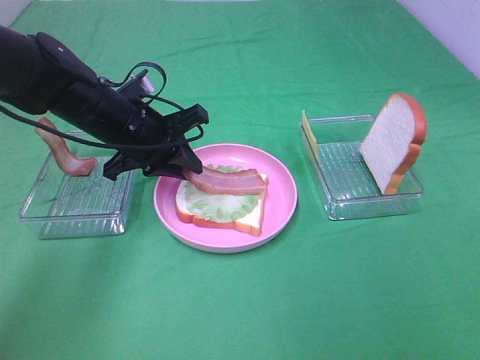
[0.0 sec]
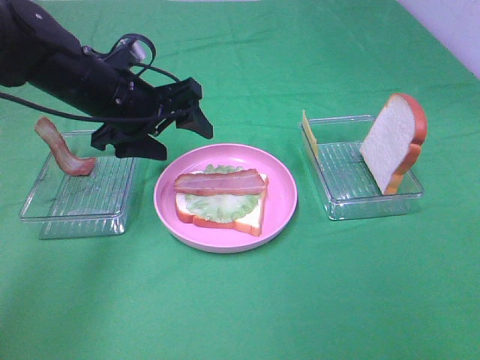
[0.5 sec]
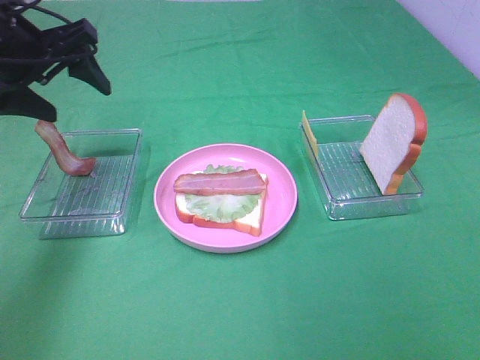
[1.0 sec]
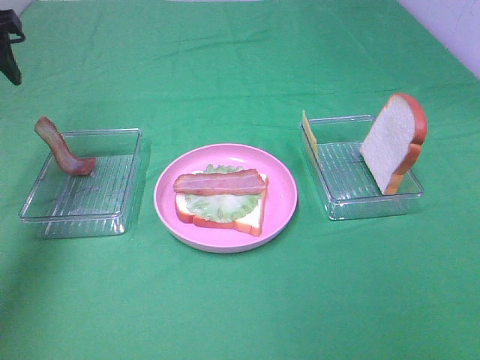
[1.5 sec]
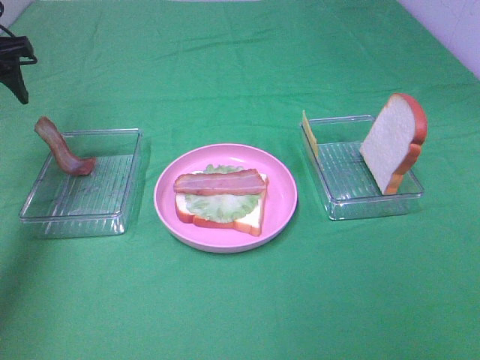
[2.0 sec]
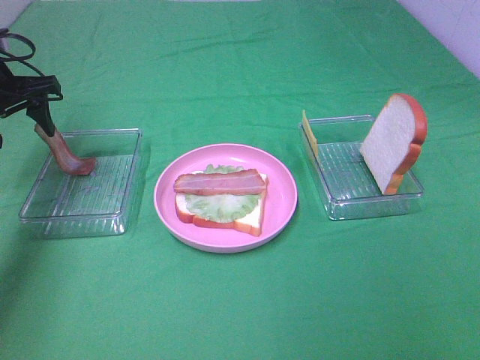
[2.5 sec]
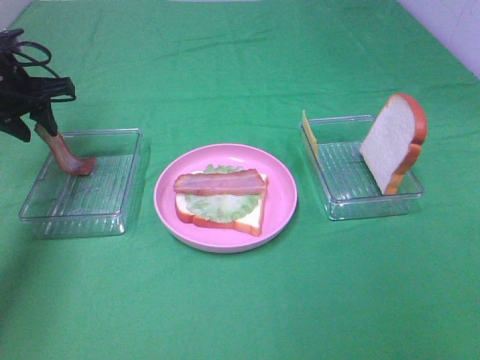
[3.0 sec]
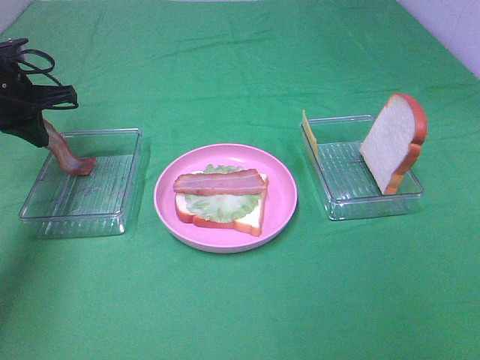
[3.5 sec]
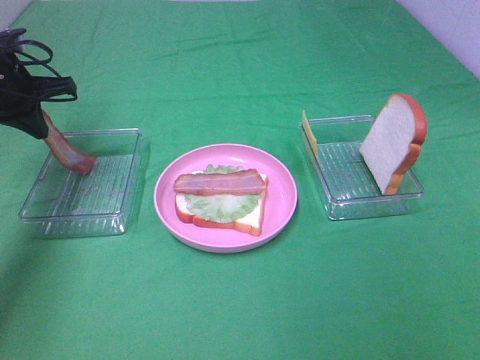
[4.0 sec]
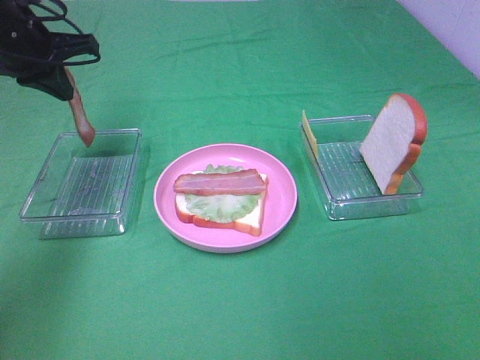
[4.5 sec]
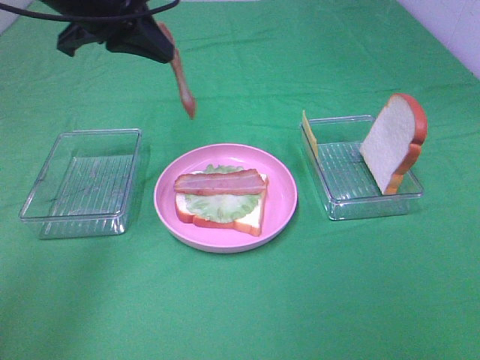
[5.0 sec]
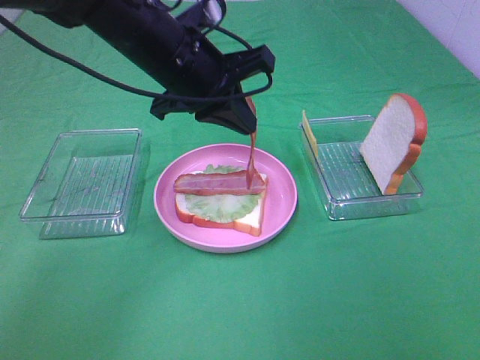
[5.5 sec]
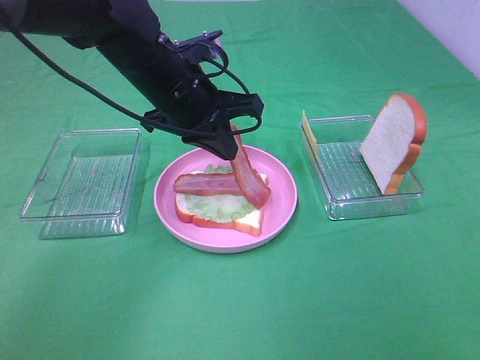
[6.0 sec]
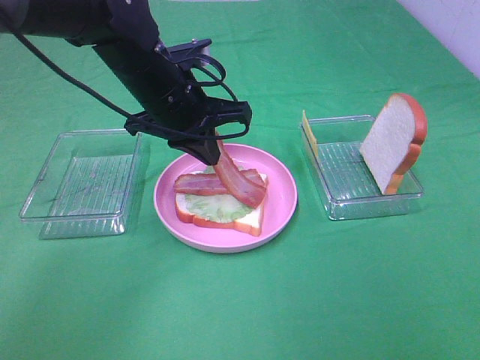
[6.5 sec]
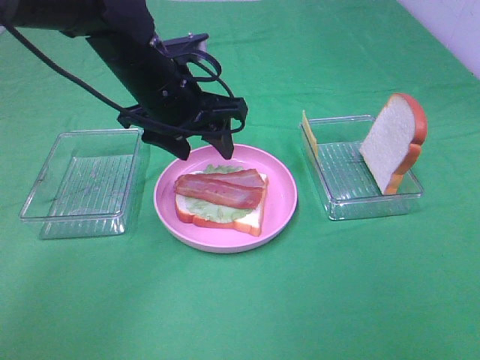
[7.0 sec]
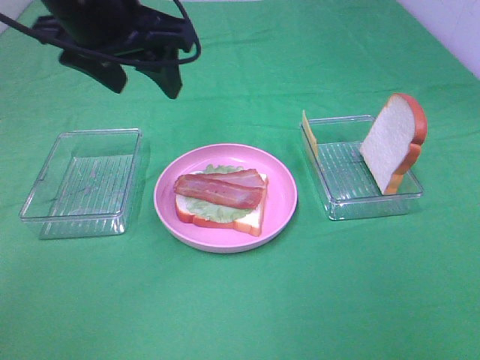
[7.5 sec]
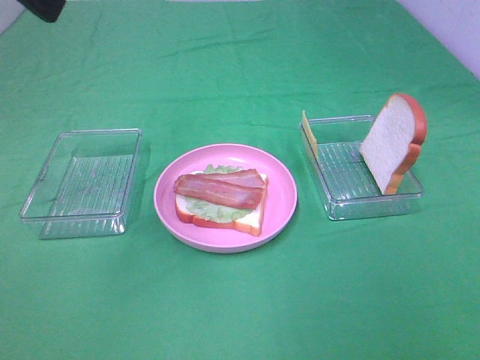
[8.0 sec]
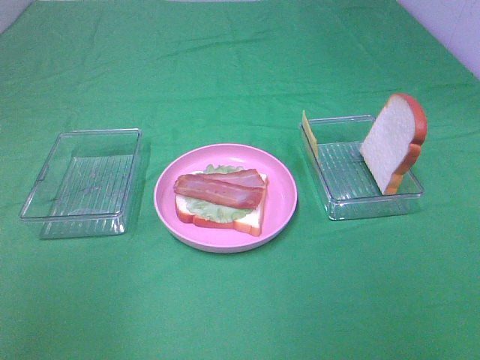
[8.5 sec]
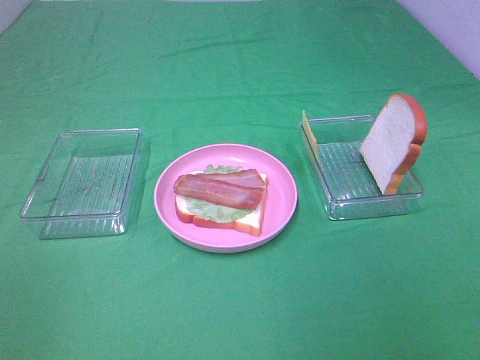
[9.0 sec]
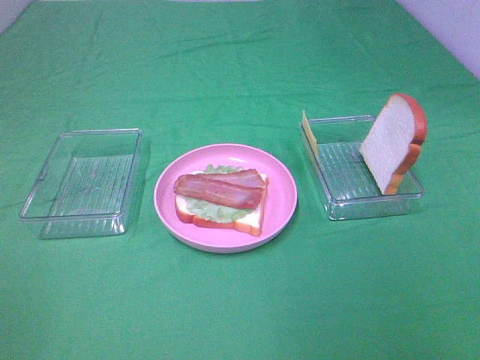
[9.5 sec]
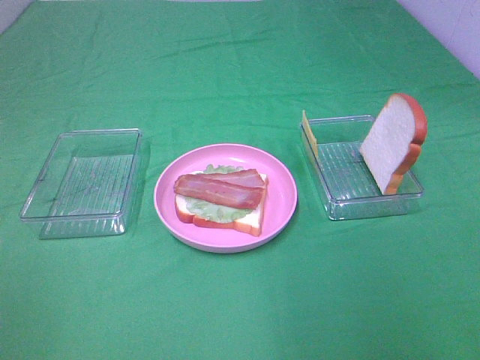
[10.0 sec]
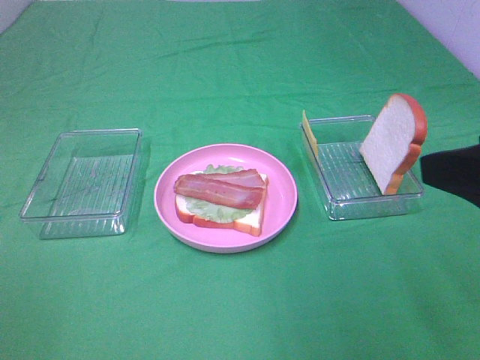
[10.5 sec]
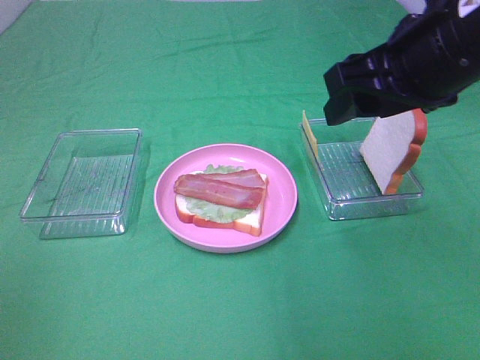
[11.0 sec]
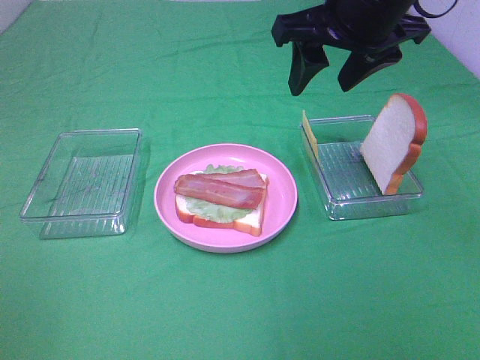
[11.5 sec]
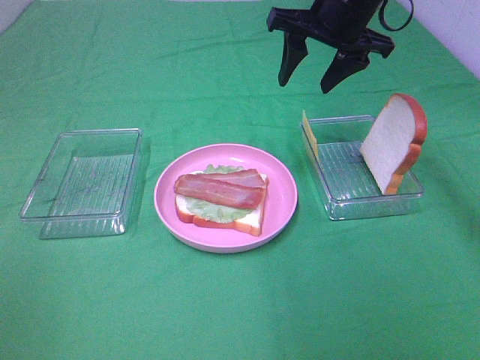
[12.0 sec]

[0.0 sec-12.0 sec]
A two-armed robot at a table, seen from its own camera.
Task of the whole recording: Make sandwiches.
Step, 0.5 sec to 3.5 sec: Left hand:grab the bacon.
0.0 sec to 2.0 sec: The left gripper moves to the left and upward, roughly 20 cm, and opens.
2.0 sec to 4.0 sec: The left gripper moves downward, approximately 5 cm, and closes its fingers.
4.0 sec to 6.0 sec: The left gripper is displaced to the right by approximately 25 cm.
6.0 sec to 8.0 sec: The left gripper is displaced upward, backward and to the left by roughly 30 cm, and opens its fingers.
8.0 sec to 10.0 sec: The left gripper is displaced backward, to the left and downward by some 30 cm.
10.0 sec to 12.0 sec: The right gripper goes about 40 cm forward.

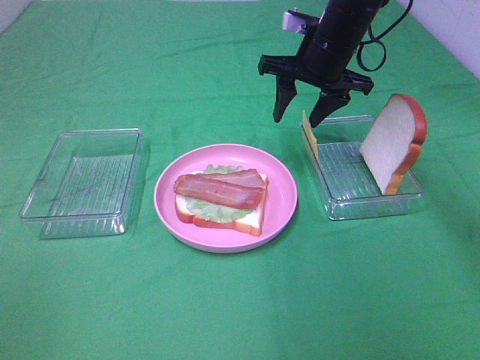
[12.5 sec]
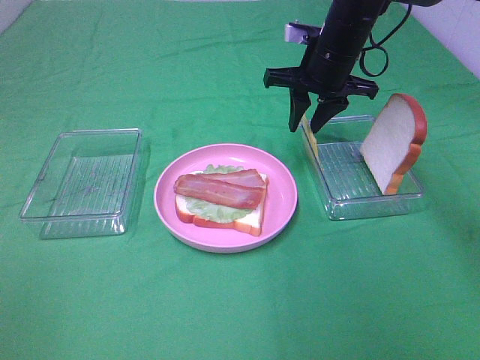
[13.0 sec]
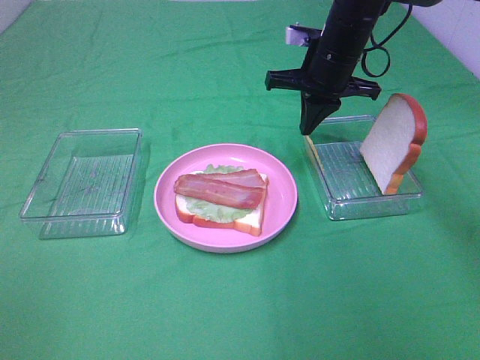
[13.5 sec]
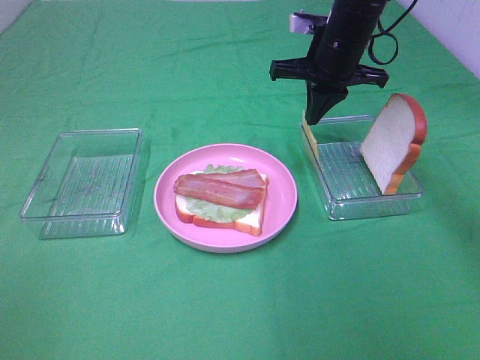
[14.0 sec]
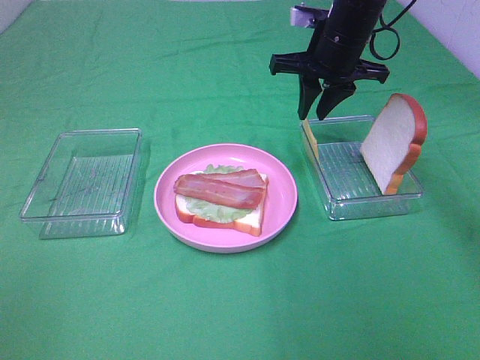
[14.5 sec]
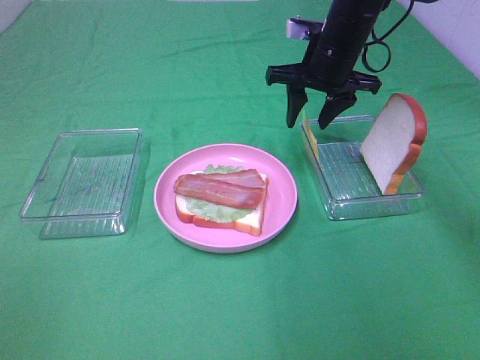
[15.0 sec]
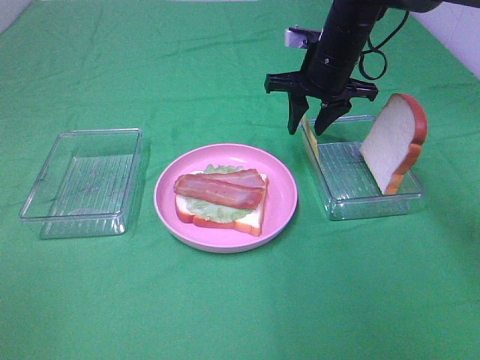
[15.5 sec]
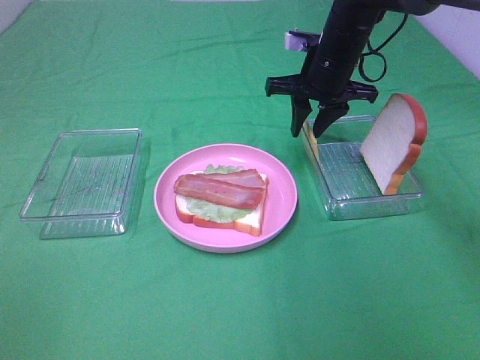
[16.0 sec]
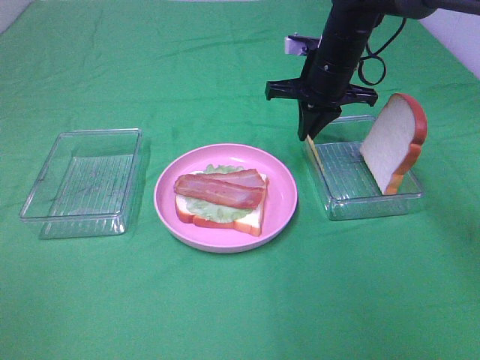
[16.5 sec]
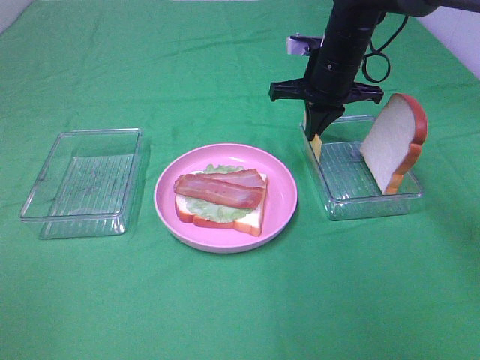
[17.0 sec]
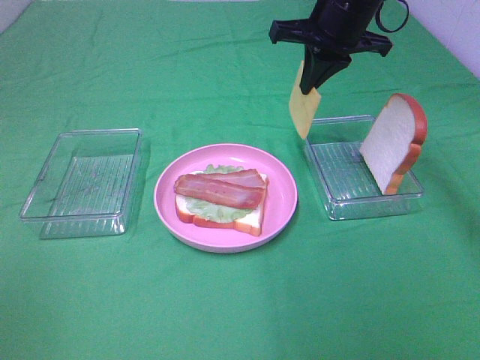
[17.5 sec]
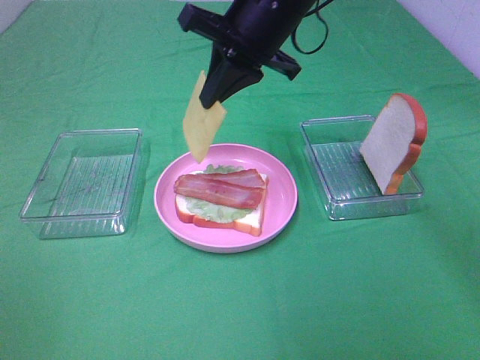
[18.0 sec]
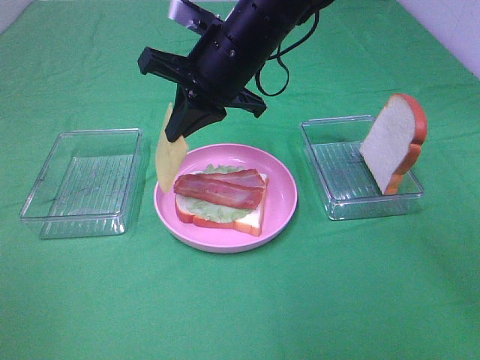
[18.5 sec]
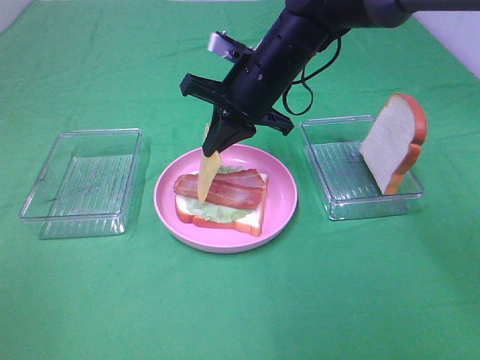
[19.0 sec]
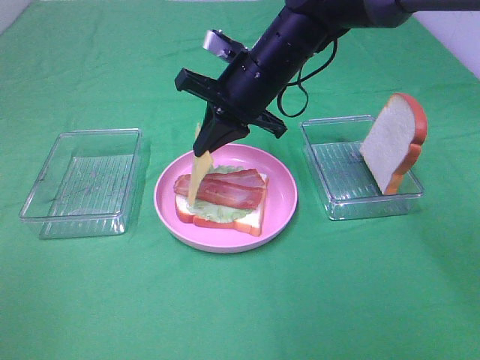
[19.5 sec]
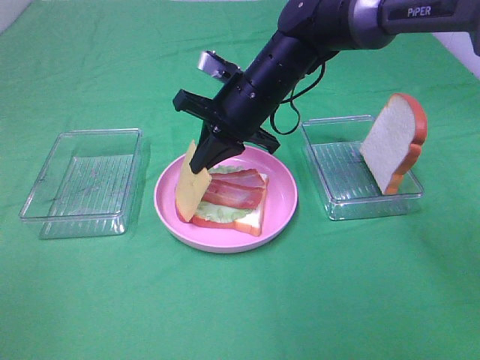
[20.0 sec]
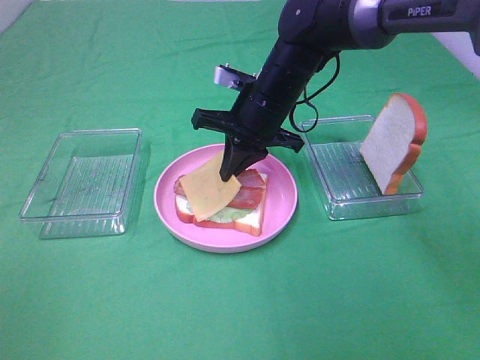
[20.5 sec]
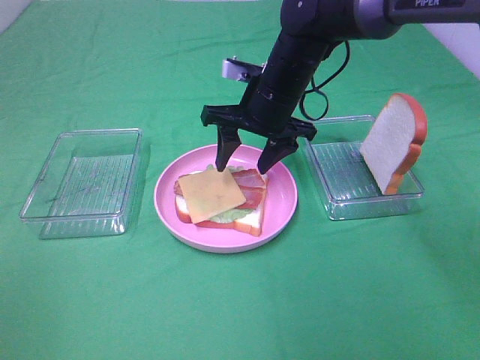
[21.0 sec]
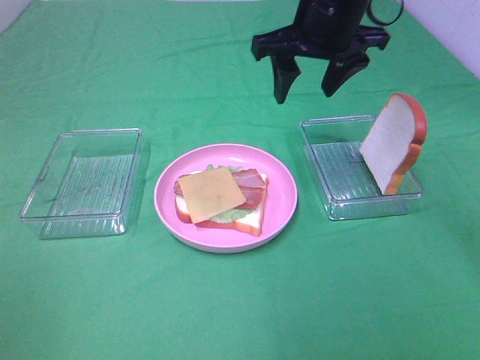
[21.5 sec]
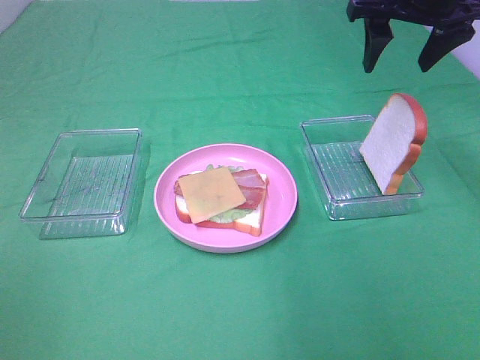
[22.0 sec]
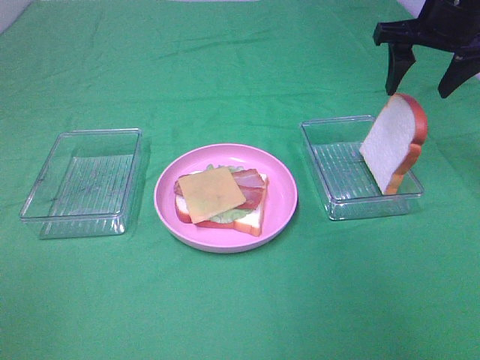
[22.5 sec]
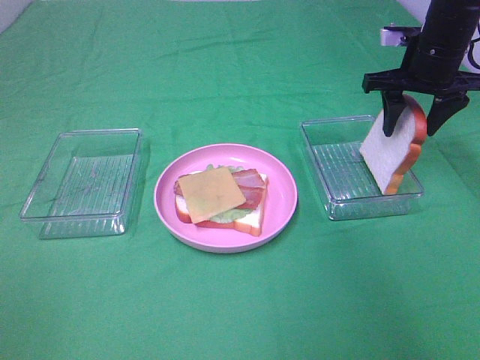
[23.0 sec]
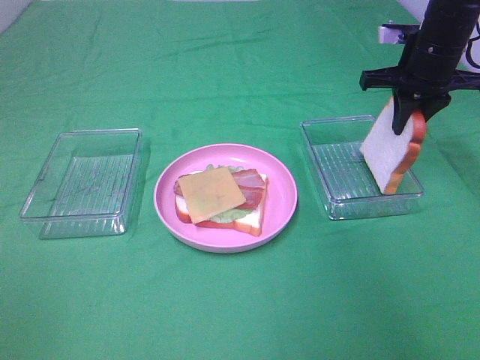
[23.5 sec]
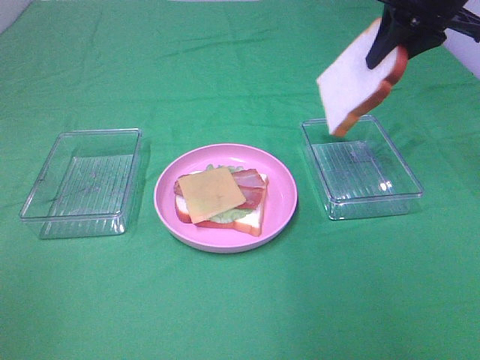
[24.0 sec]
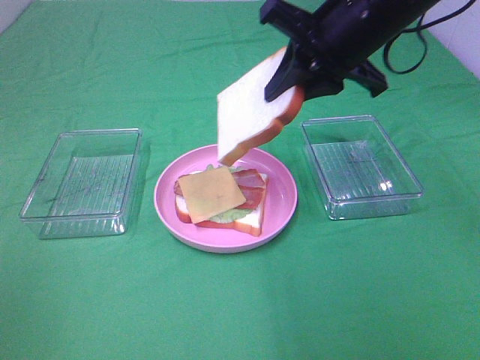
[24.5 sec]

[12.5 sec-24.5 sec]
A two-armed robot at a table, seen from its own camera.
Task of the whole recording: Make sandwiches.
Step, 12.5 sec to 16.5 sec: Right hand:grab the cheese slice.
Step, 17.0 sec to 21.0 sec: Right hand:place the cheese slice on top of the bacon.
Step, 21.5 sec to 23.0 sec: Right hand:grab the bread slice.
12.5 sec to 14.5 sec: The right gripper closes and opens again.
14.5 sec to 16.5 sec: The right gripper closes its fingers.
16.5 sec to 18.5 sec: The right gripper moves to the left, backward and upward, roughly 15 cm.
18.5 sec to 20.5 sec: The right gripper heads downward, covering some 5 cm.
20.5 sec to 22.5 sec: The right gripper travels to the right and upward by some 25 cm, and opens.
22.5 sec to 24.5 sec: The right gripper travels to the left and backward by roughly 15 cm, and closes up.

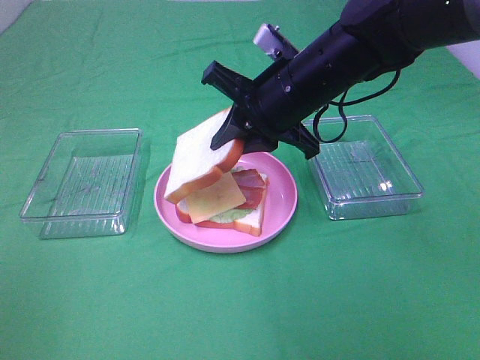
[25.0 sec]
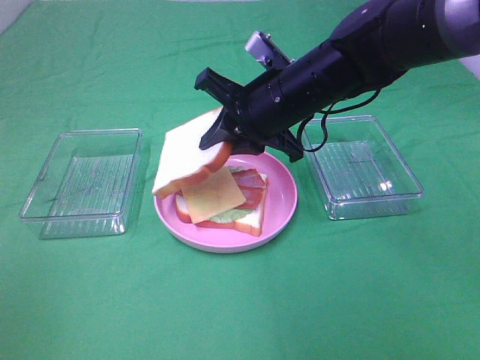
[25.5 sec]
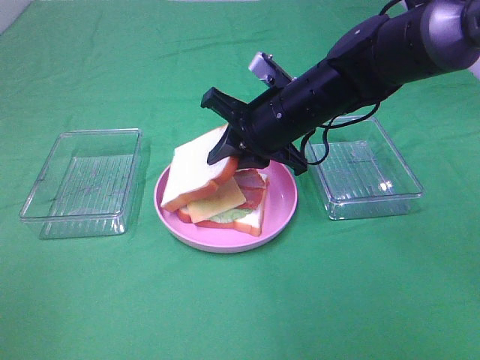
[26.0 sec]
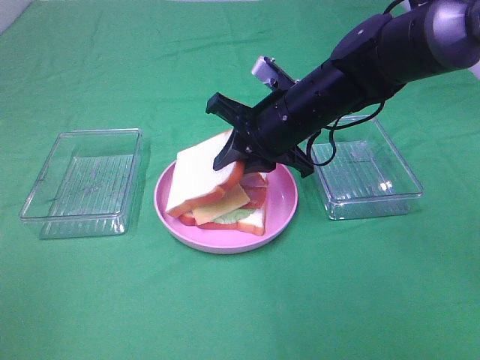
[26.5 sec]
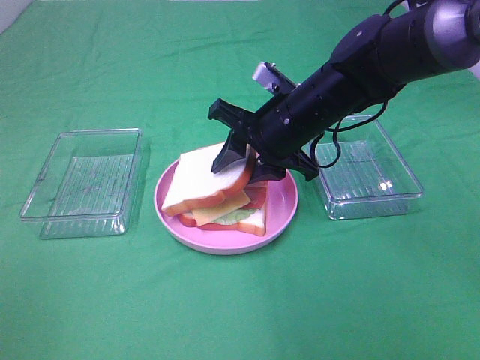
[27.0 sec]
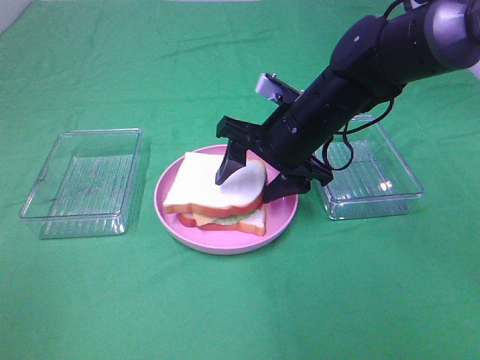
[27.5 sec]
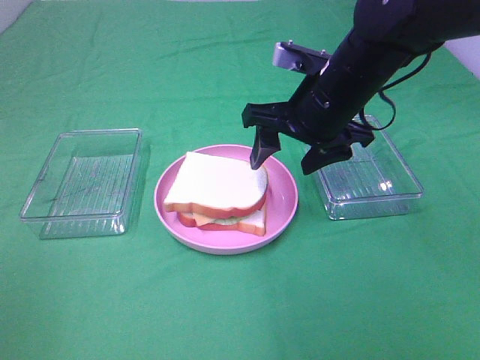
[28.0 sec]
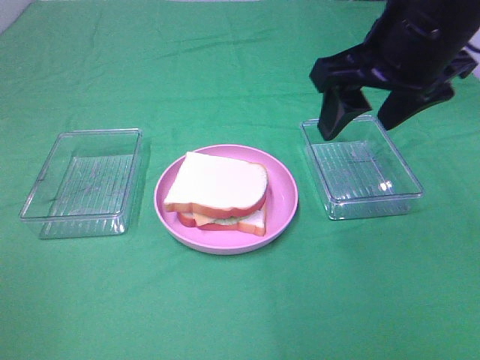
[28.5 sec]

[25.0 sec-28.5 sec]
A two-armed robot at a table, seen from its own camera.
Task of the whole recording: Make sandwiches.
Step, 25.0 sec to 27.5 sec: Right hand:place the bread slice on the cheese slice.
25.0 sec to 27.0 sec: The right gripper opens its fingers.
27.0 sec to 28.5 sec: The right gripper goes approximately 20 cm upward, backward and to the right, and opens up.
